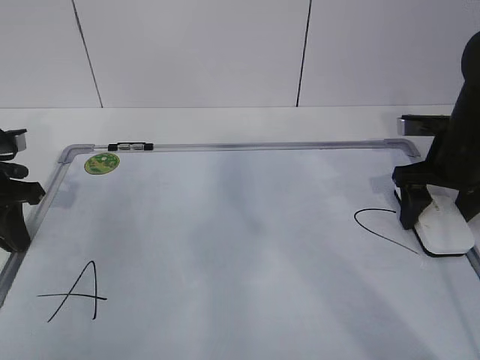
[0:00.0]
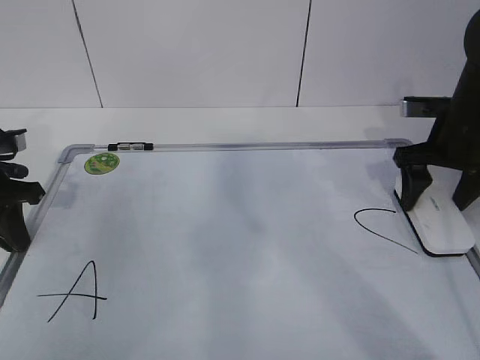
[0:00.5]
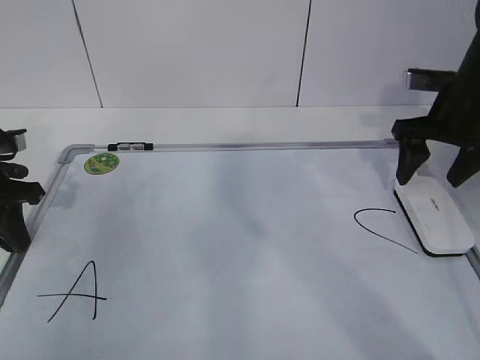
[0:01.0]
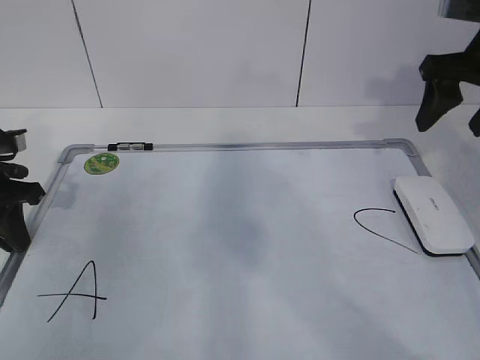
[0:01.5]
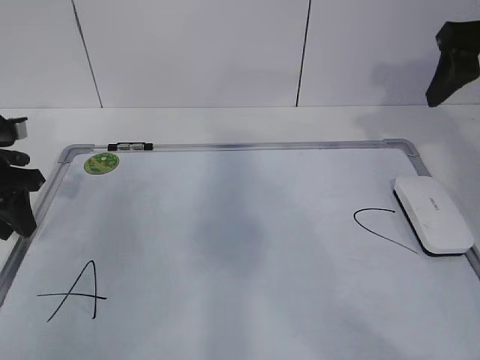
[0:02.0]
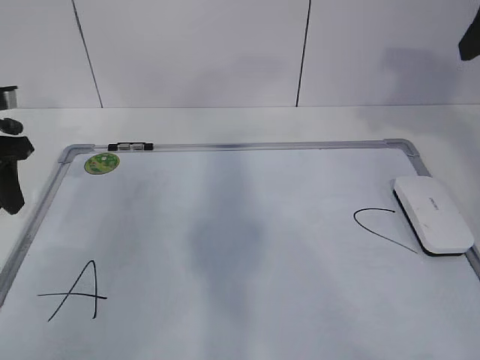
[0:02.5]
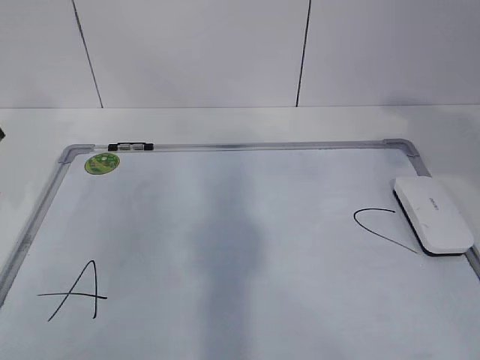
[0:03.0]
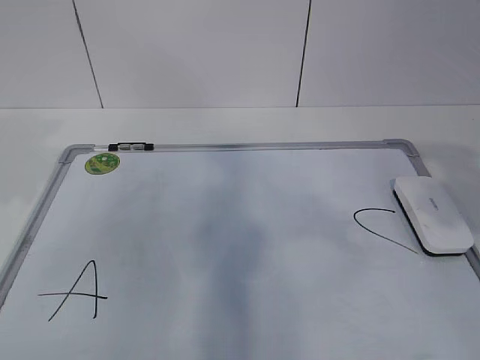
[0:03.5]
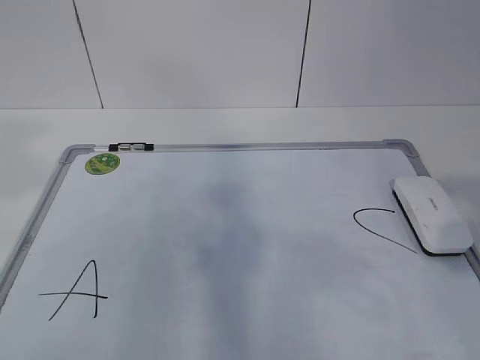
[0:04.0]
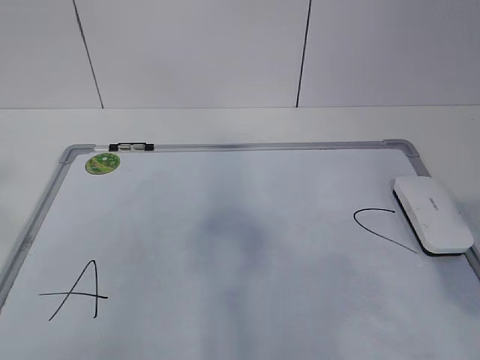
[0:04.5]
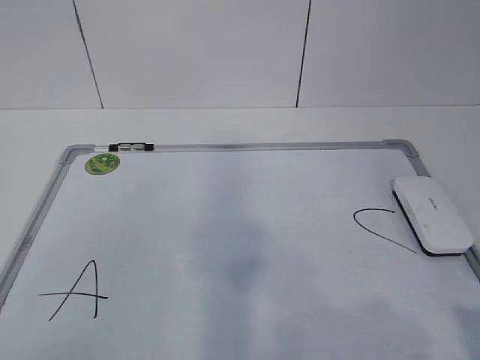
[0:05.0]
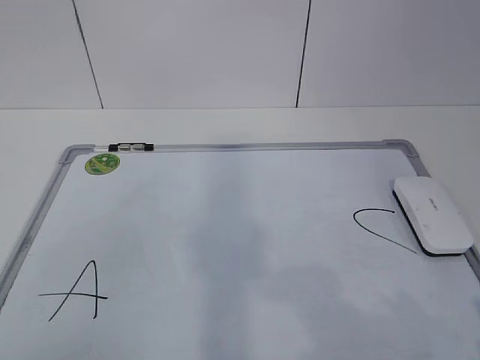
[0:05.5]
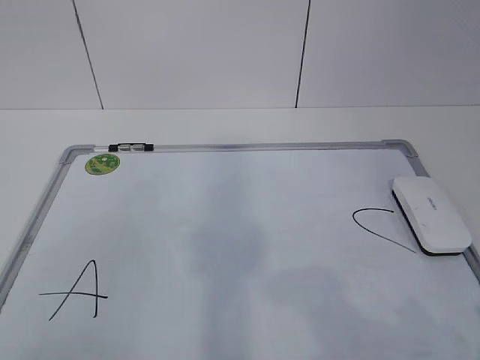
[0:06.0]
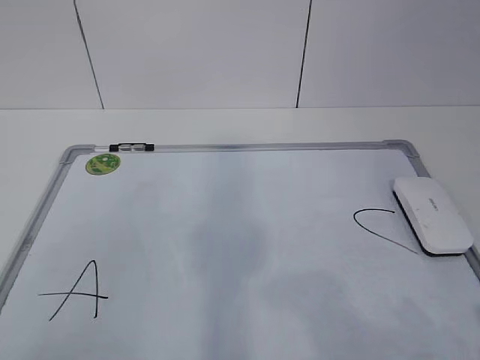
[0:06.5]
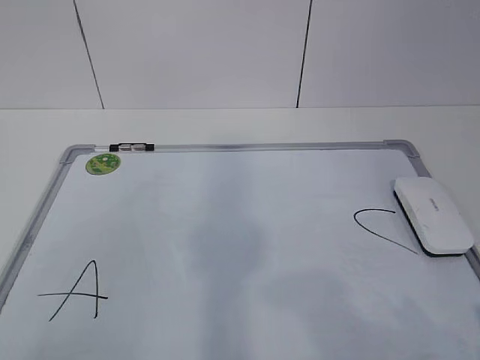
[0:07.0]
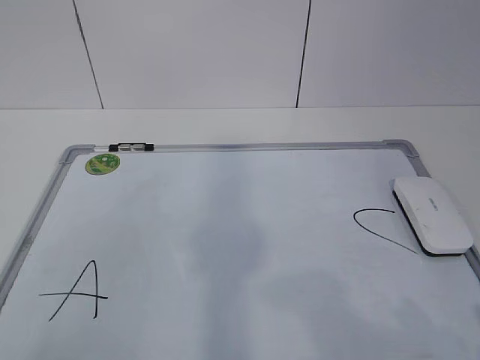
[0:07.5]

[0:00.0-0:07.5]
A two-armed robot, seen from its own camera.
Task of the whole recording: pick up the eraser on the blackboard and erase the letter "B".
0:00.0 to 0:02.0: The right gripper heads upward, covering approximately 15 cm, while the left gripper opens its fingers.
0:02.0 to 0:04.0: The left gripper shifts approximately 30 cm upward and backward. Meanwhile the right gripper moves backward, about 30 cm.
0:04.0 to 0:05.5: The left gripper moves backward and downward, some 20 cm. Meanwhile the right gripper moves downward, roughly 10 cm.

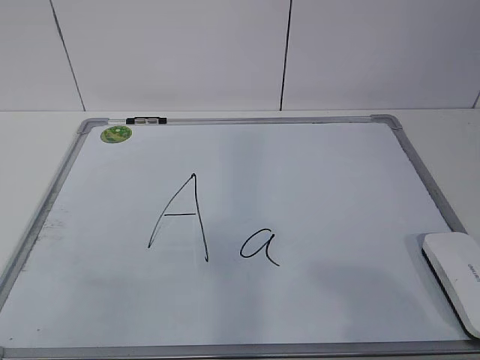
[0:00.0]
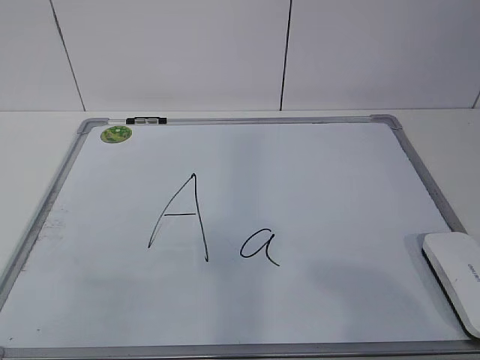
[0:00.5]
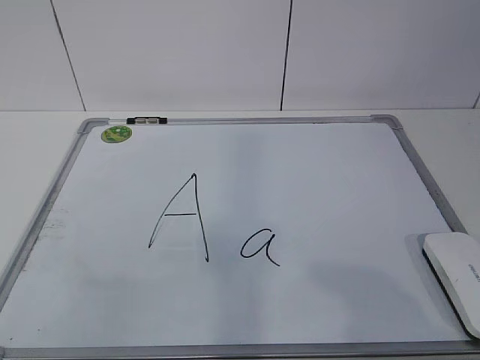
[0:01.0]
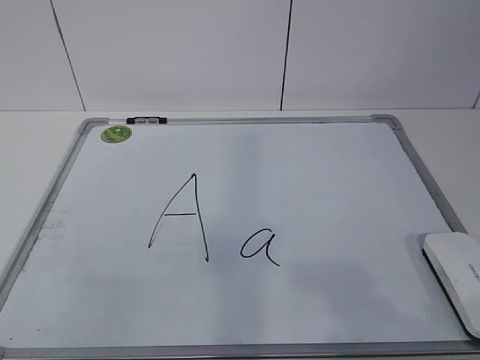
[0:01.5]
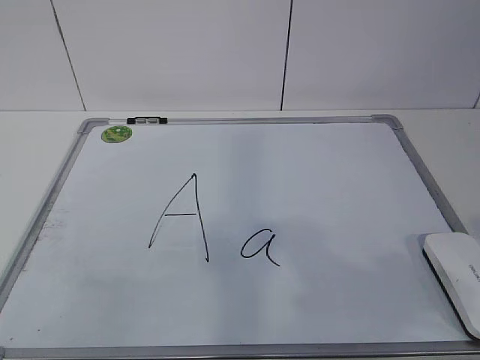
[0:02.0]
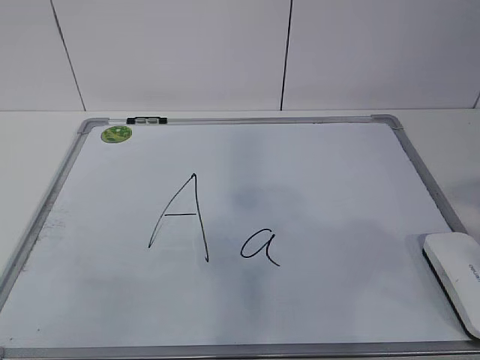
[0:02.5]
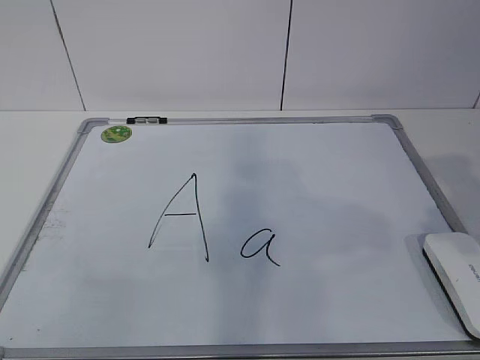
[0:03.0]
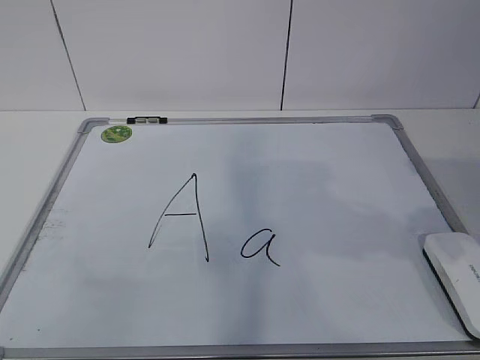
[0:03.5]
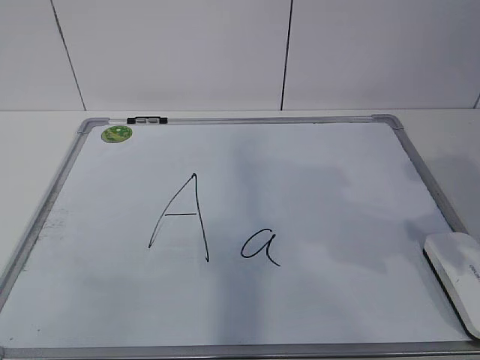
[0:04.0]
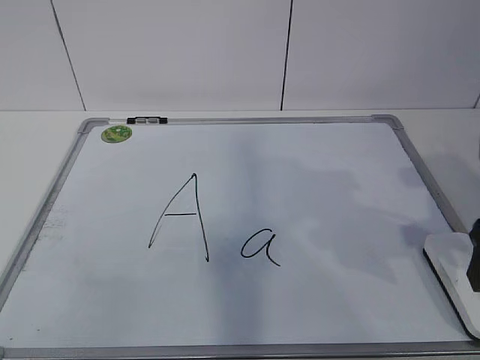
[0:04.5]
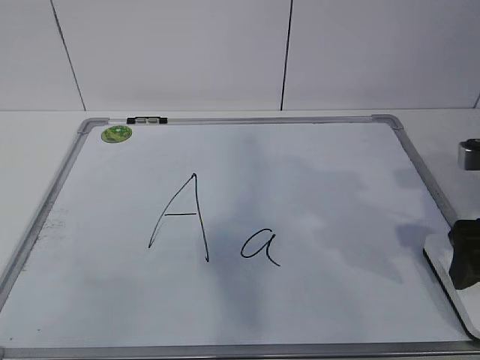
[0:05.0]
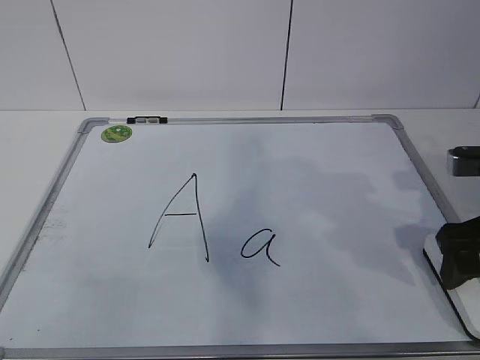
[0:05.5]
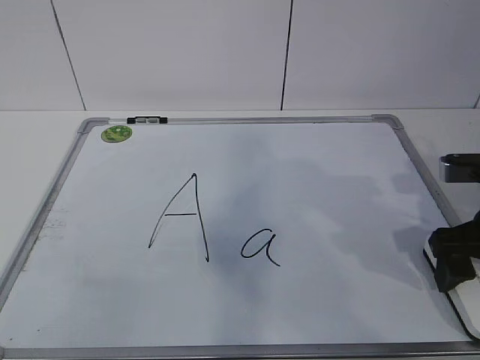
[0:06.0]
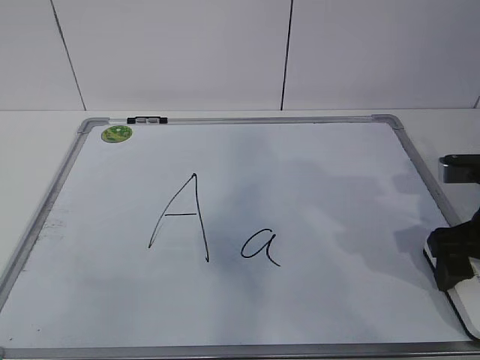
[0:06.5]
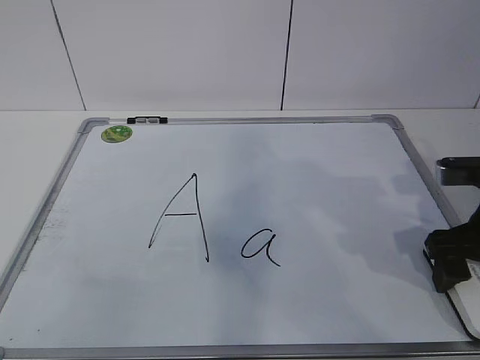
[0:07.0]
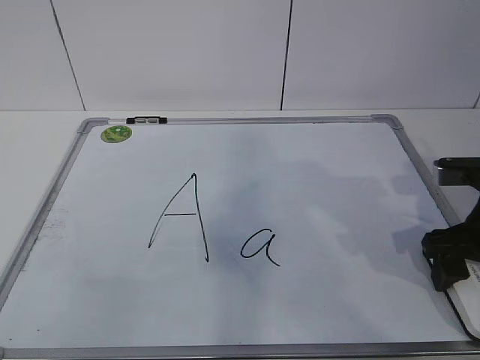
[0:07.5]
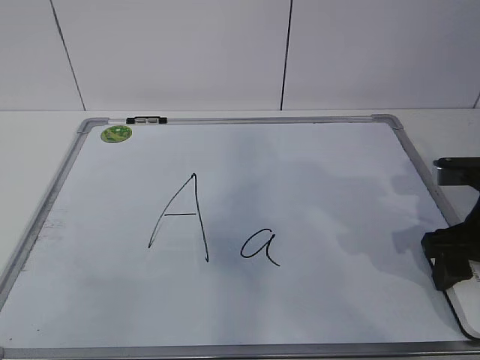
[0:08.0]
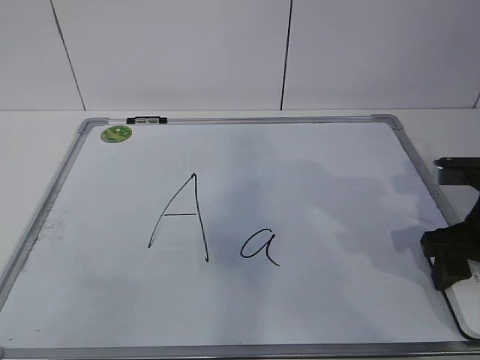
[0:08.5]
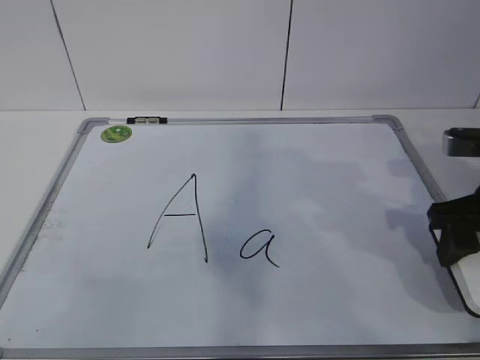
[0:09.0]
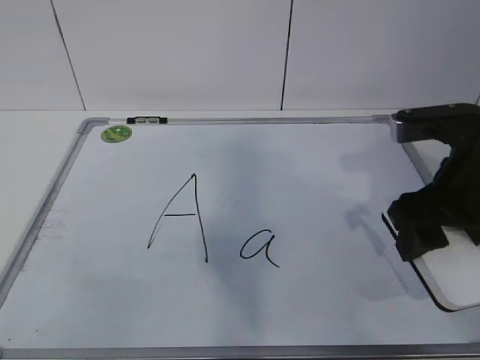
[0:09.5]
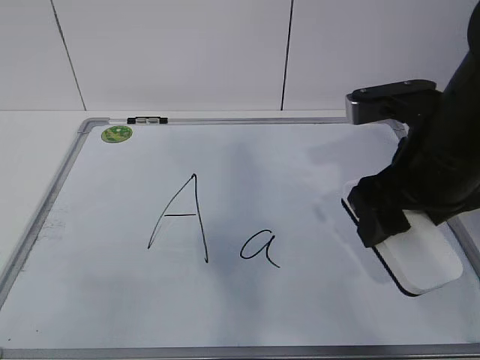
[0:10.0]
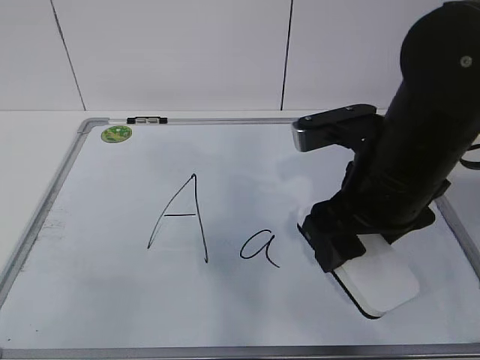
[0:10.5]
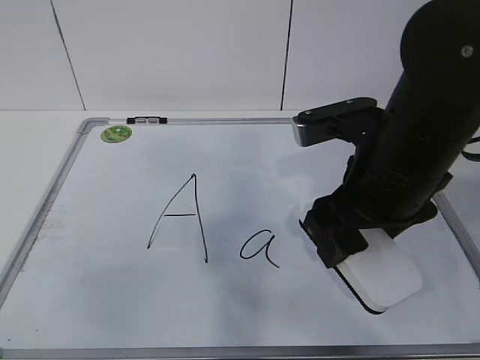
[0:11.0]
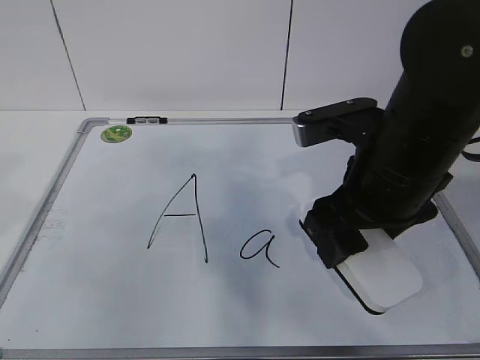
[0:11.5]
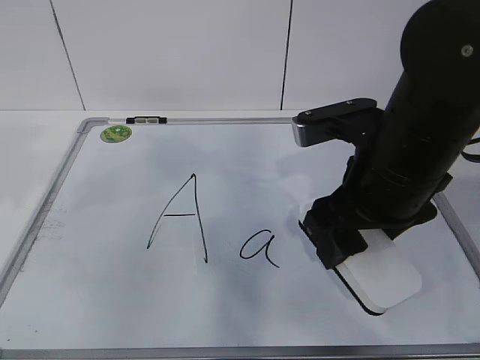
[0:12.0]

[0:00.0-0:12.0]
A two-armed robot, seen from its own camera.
Task of the whole recording: pick up the eraser on the blackboard and erase the letter "a".
Step, 0:00.0 to 0:07.0: Grab the eraser with your right hand.
Step, 0:07.5 to 0:12.0: Hold the drawing board steady with your left hand.
0:02.0 to 0:04.0: The right gripper is displaced forward by about 20 cm.
0:04.0 to 0:06.0: The right gripper moves downward and forward, about 10 cm, and opens up.
0:06.0 to 0:08.0: The right gripper closes its fingers.
0:08.0 to 0:10.0: The right gripper goes about 15 cm to the left and upward.
0:10.0 to 0:12.0: The left gripper moves forward, roughly 25 cm.

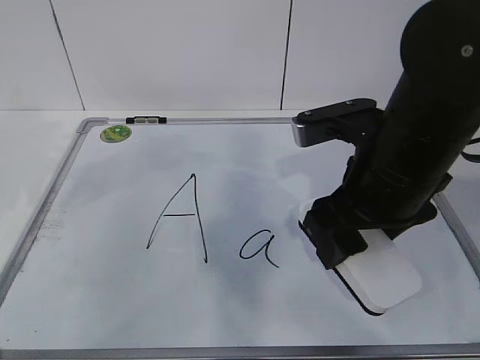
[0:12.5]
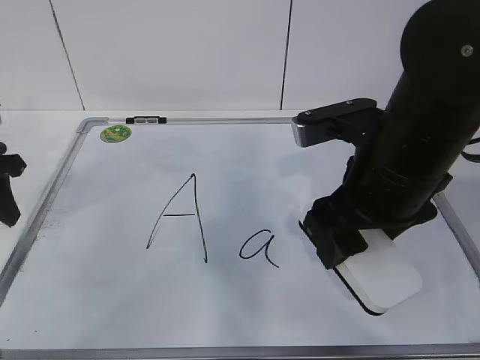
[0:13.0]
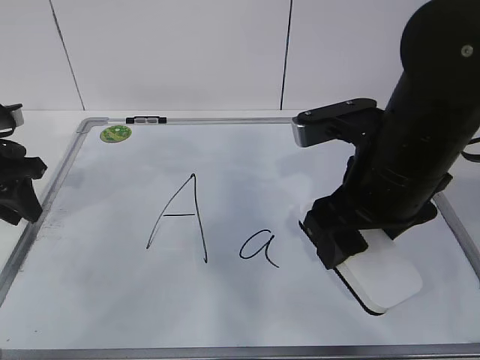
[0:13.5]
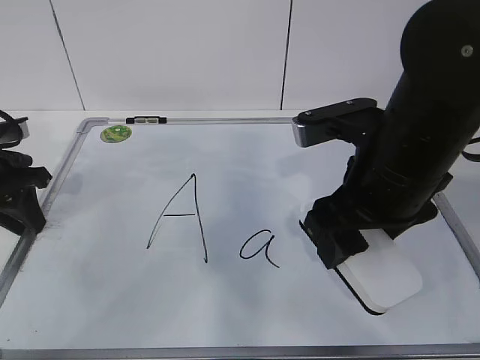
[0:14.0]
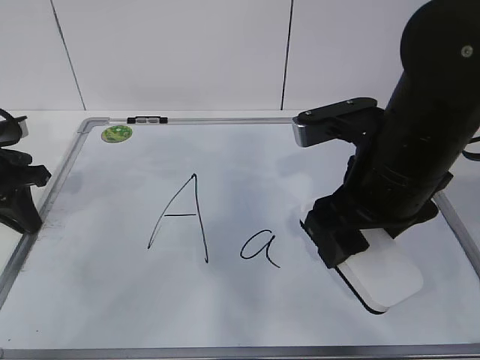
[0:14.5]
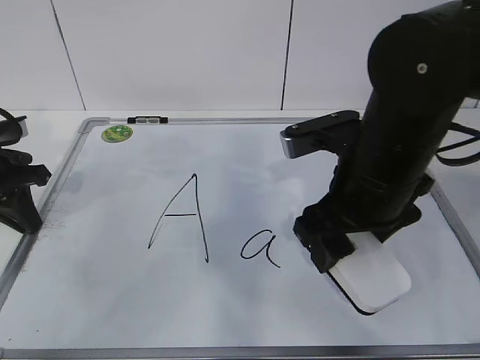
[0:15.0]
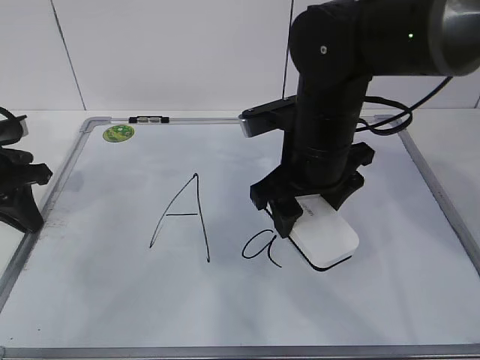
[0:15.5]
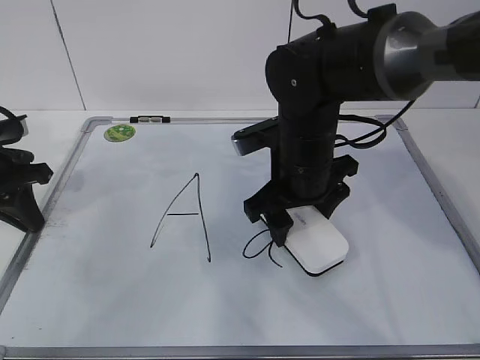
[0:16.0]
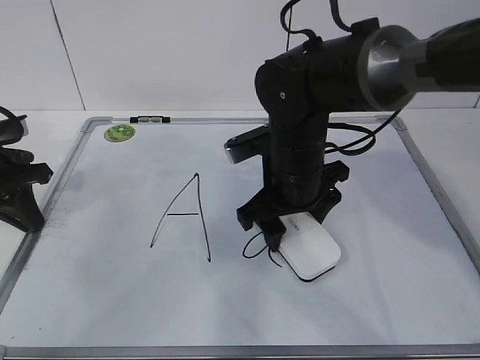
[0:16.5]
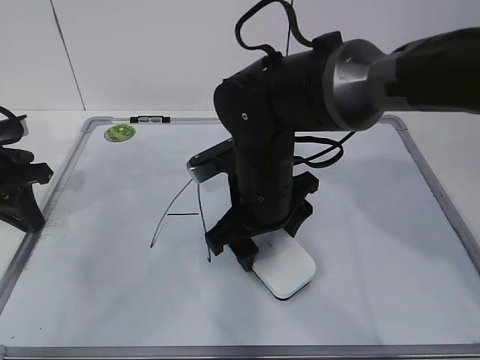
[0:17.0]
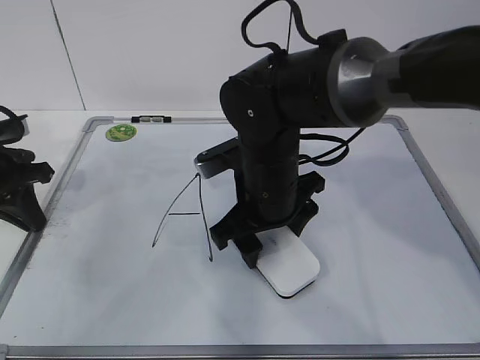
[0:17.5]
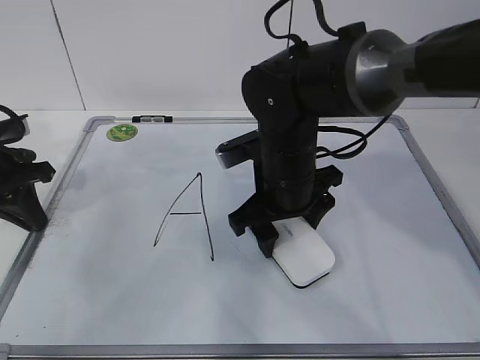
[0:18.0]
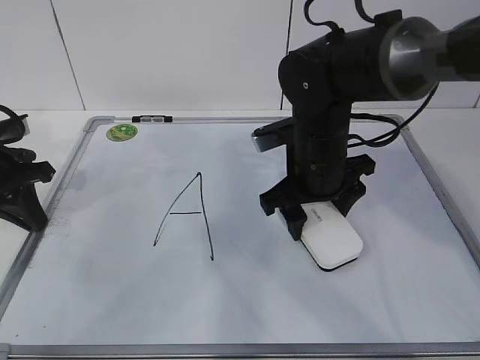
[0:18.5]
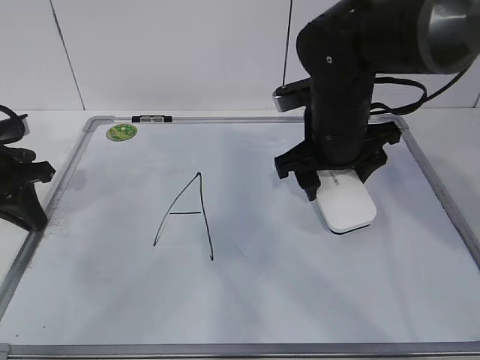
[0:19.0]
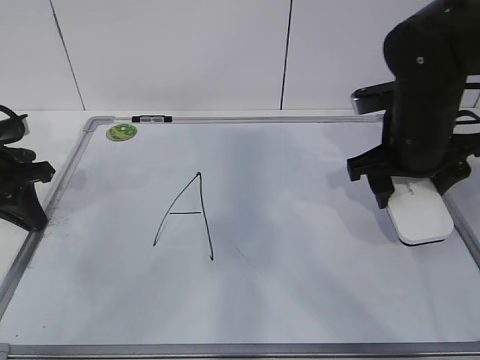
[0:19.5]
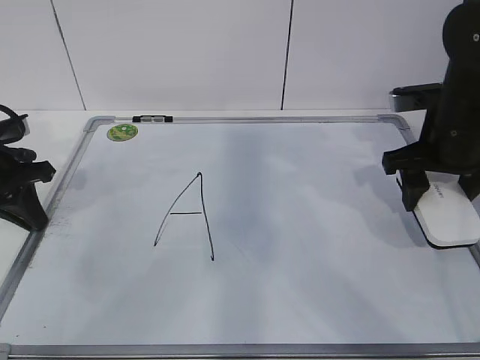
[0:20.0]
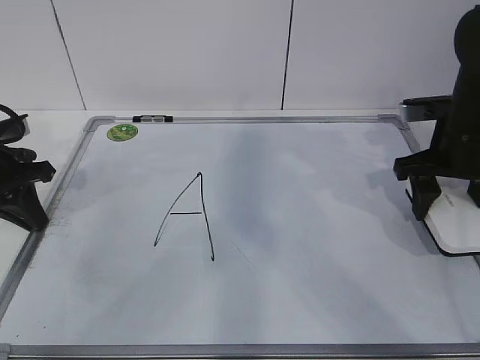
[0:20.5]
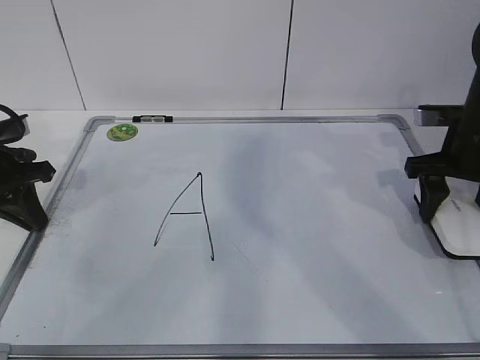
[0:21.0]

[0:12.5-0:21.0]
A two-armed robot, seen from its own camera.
Task of the whole recording: pick up the eraser on the blackboard and erase the letter "a".
Step, 0:12.5 to 0:15.0: Erase the letter a with your right hand.
Step, 0:16.0 to 0:19.0: Put down the eraser with your right hand.
0:12.5 to 0:14.5: The left gripper is displaced downward by approximately 10 cm, and closes up.
0:14.5 to 0:16.5: The right gripper shifts about 15 cm forward, downward and to the left.
0:16.5 to 0:19.0: The right gripper shifts by approximately 5 cm.
0:19.0 to 0:21.0: The right gripper travels to the right by some 15 cm.
